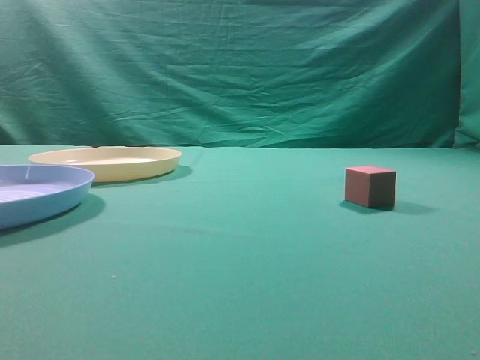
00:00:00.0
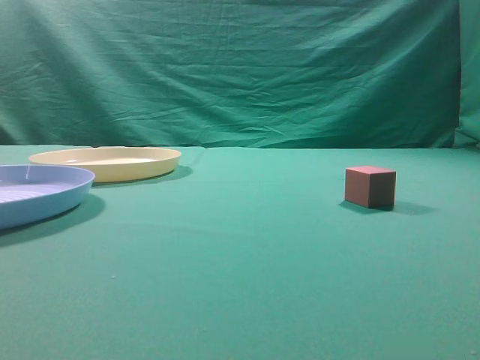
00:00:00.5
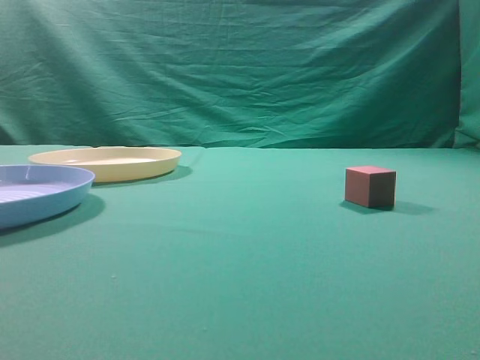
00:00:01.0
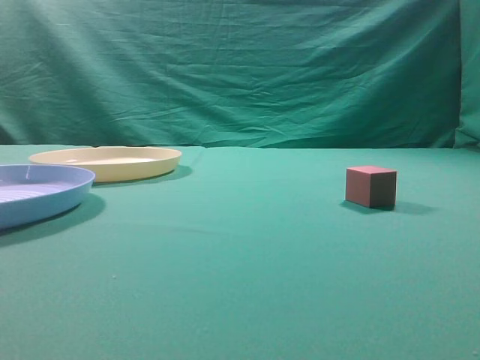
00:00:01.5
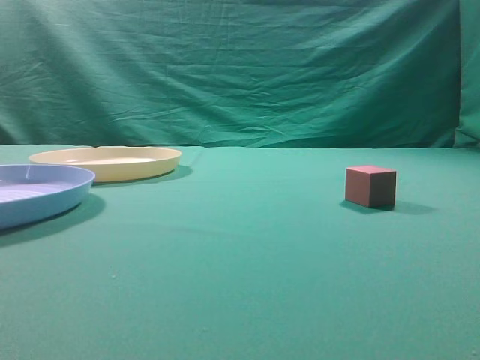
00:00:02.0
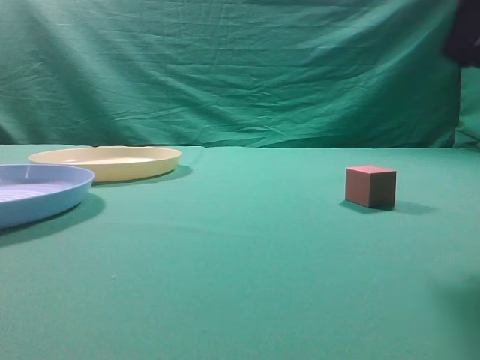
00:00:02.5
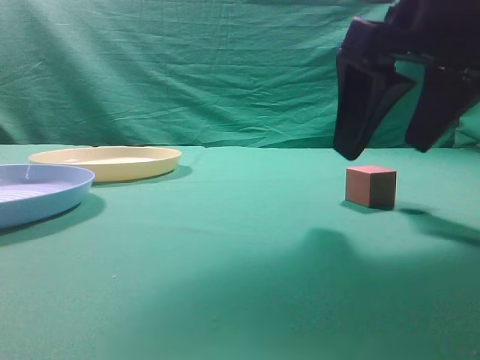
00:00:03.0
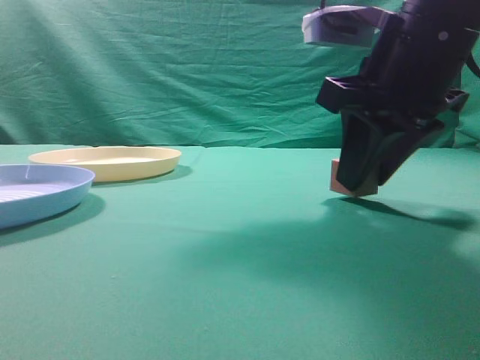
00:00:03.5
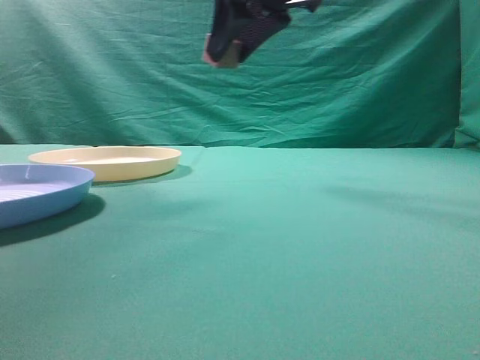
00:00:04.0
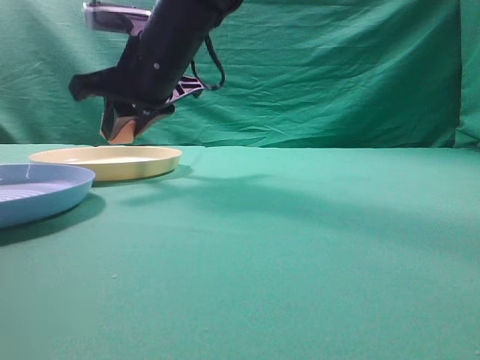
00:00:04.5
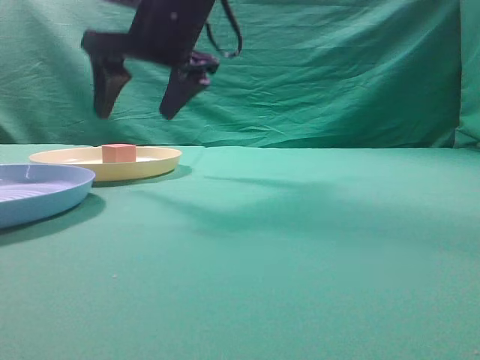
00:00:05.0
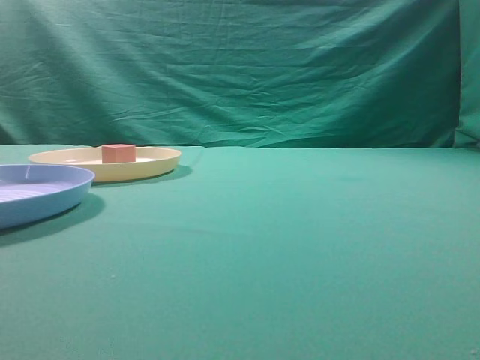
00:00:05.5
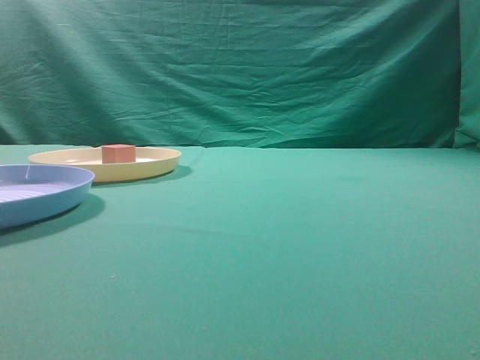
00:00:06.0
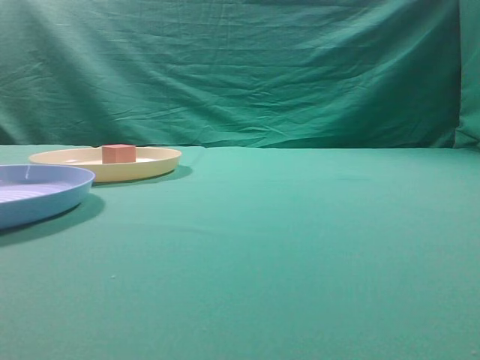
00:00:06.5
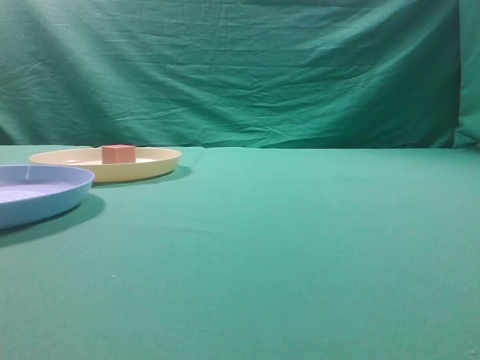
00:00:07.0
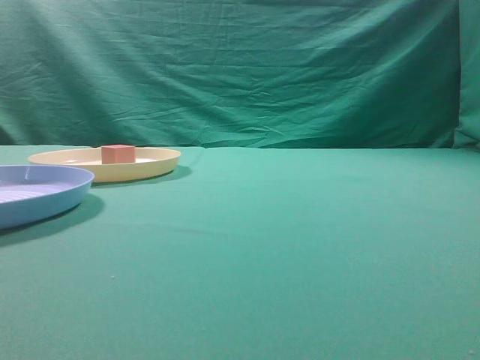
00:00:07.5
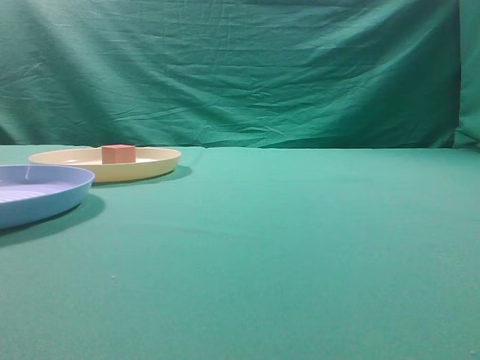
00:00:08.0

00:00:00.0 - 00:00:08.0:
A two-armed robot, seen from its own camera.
Task of the whole recording: pick up the cube block from the table and put it on the plate.
Step, 00:00:00.0 - 00:00:03.5: Grasp the small cube on the table.
Step, 00:00:04.0 - 00:00:05.0: Place it into the yellow plate.
00:00:02.0 - 00:00:04.0: The right gripper goes approximately 35 cm forward and to the left, and opens.
00:00:04.0 - 00:00:06.0: The right gripper travels backward, upward and to the right by some 20 cm, and closes.
